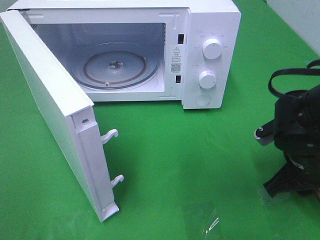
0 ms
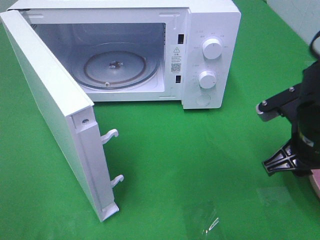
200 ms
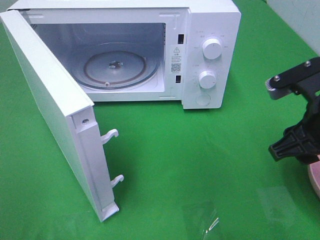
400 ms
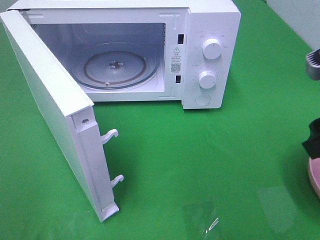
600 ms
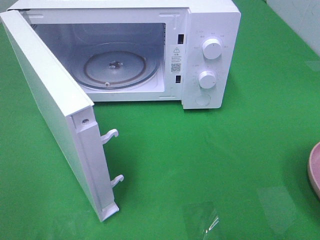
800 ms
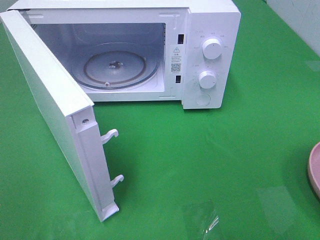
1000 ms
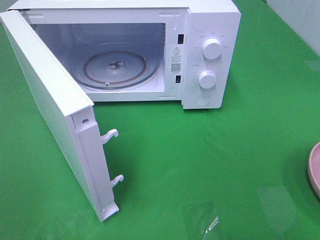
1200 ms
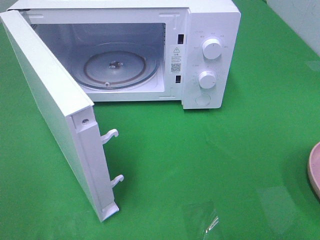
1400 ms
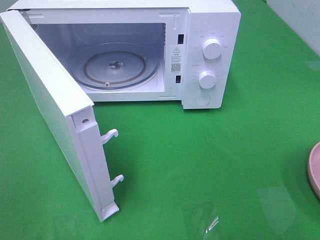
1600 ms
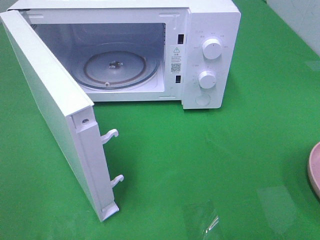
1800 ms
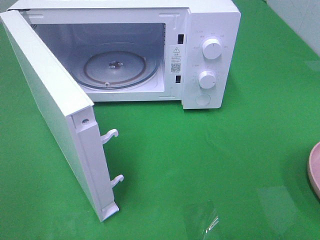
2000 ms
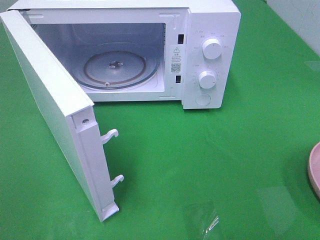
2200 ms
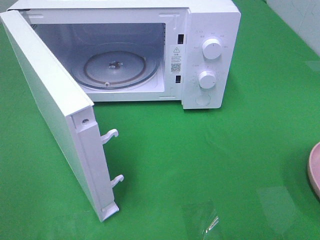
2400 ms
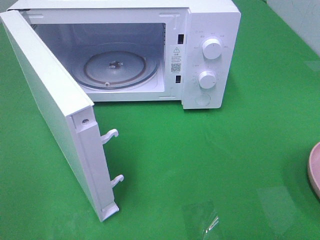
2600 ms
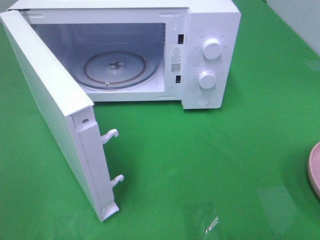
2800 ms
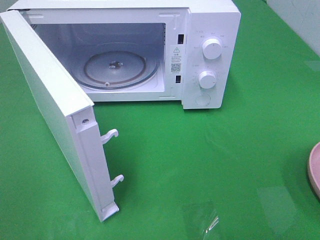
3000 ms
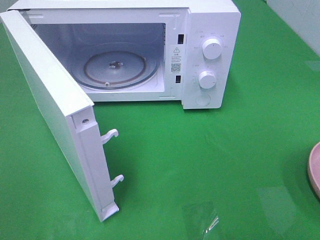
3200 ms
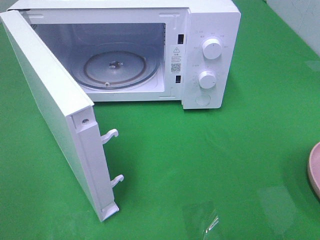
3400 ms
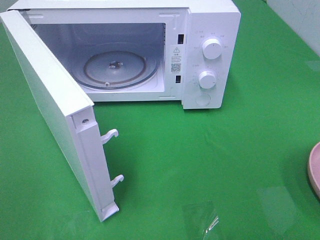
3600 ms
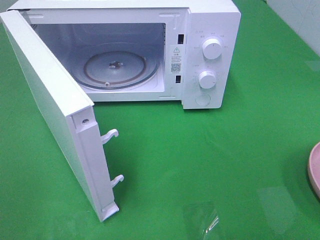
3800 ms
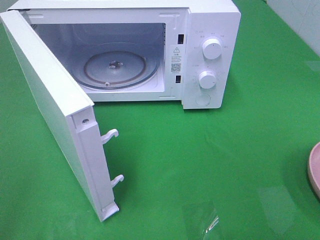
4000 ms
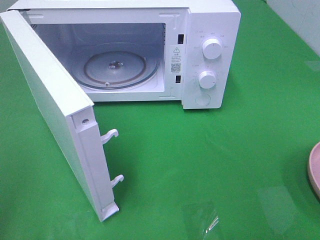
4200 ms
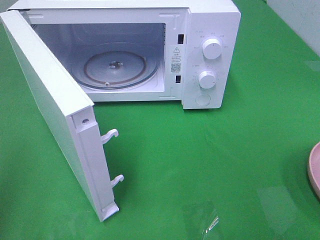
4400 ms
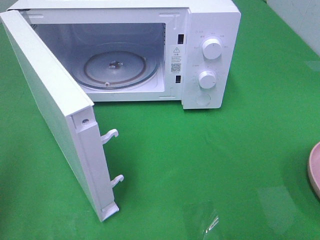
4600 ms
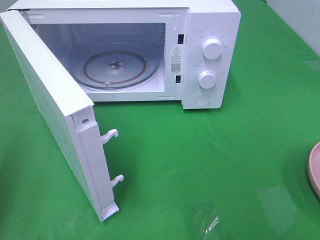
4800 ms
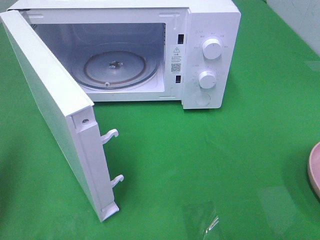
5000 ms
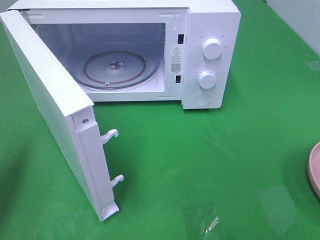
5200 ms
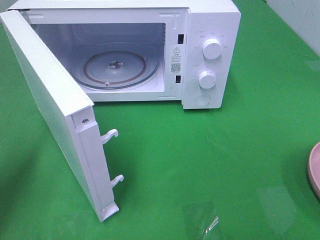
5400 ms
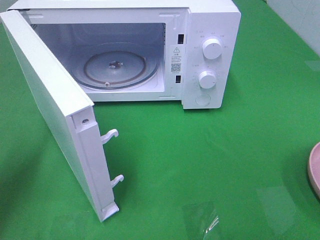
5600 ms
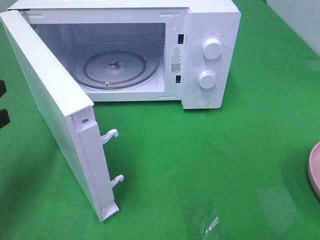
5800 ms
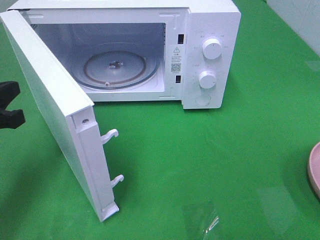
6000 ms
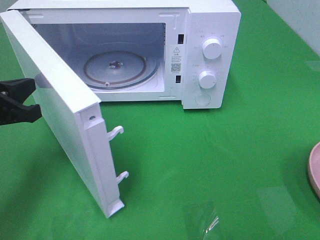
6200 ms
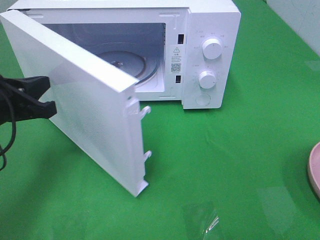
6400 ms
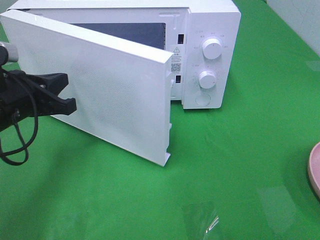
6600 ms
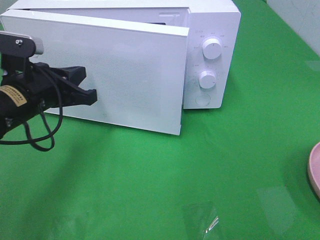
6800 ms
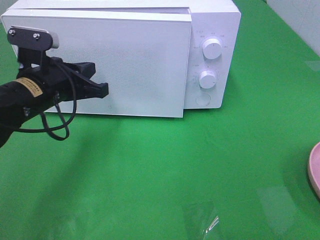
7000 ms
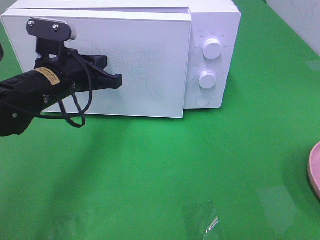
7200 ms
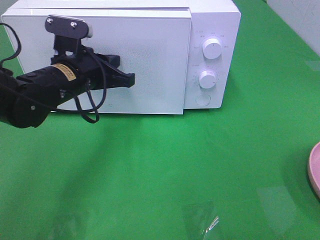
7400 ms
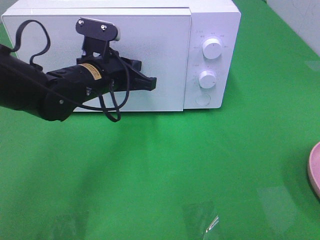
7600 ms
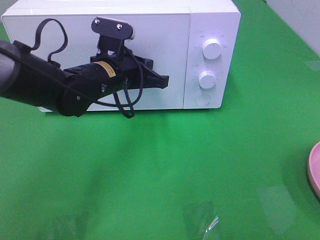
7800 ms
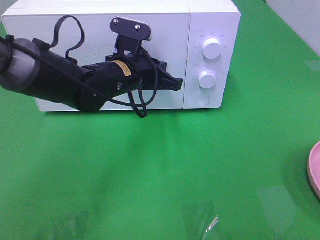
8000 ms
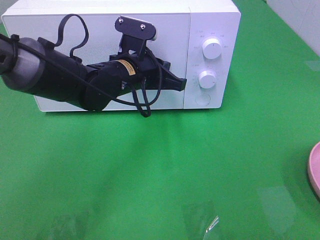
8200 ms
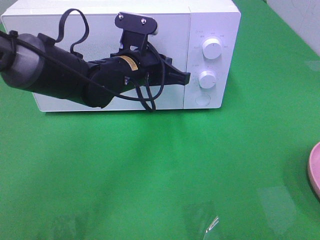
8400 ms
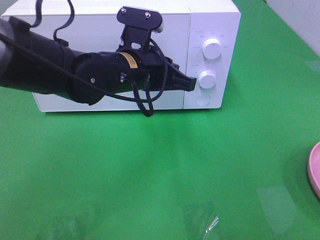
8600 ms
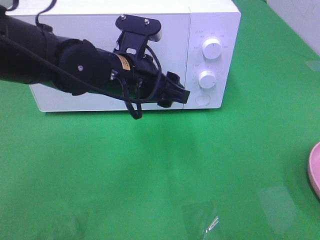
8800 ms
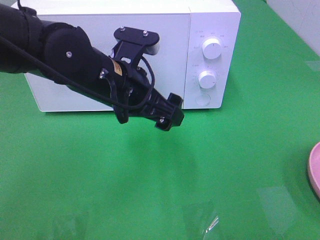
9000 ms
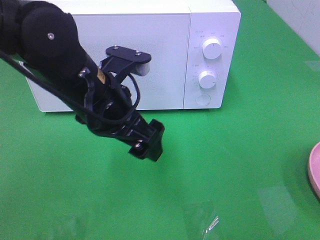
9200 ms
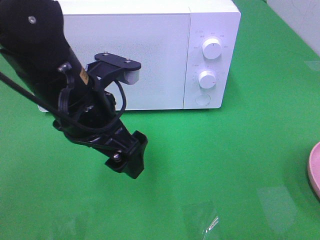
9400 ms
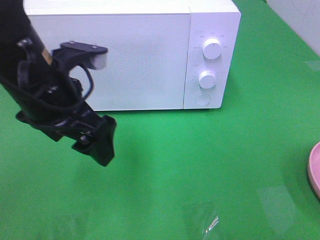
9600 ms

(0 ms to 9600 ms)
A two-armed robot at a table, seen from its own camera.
Task of the whole recording: Heat the burger.
Step, 0 ms - 8400 ms: Left hand: close the microwave door.
0 ms - 1600 ms: The right gripper goes some 30 cm upward, backward and to the right, and opens up.
4800 ms - 6400 ms: The left gripper heads forward, to the right and downward, covering roughly 20 cm.
6400 ms - 8000 ms: The left gripper goes roughly 20 cm to the right and forward.
8000 ms - 9600 ms: The left gripper is displaced backward, upward and to the left by roughly 15 cm, and opens up.

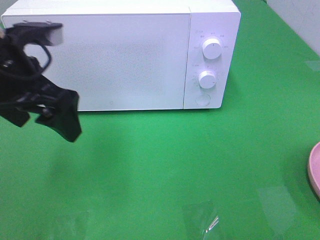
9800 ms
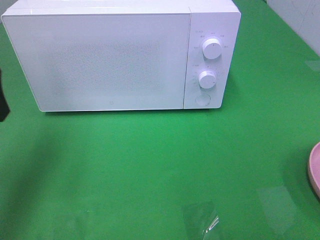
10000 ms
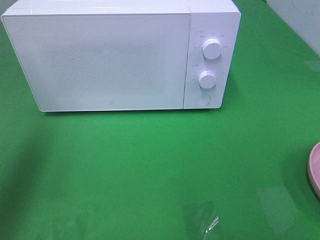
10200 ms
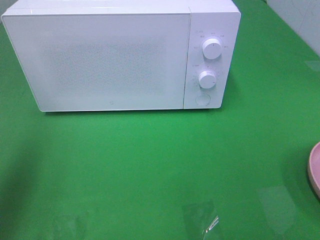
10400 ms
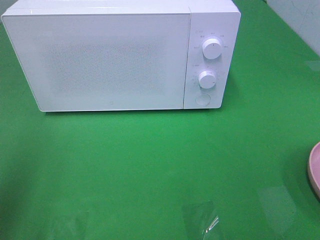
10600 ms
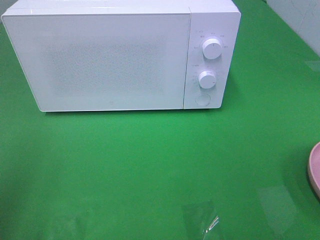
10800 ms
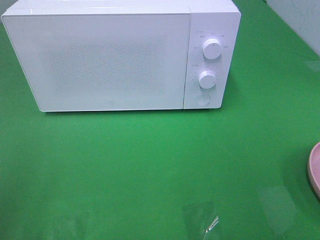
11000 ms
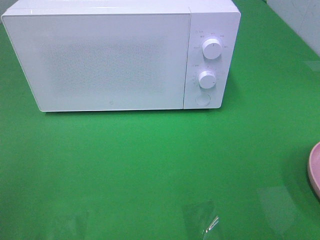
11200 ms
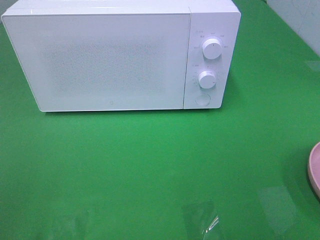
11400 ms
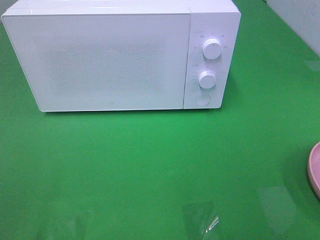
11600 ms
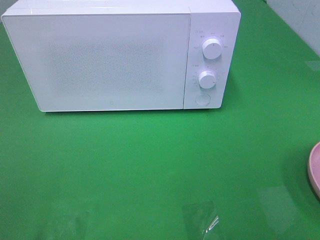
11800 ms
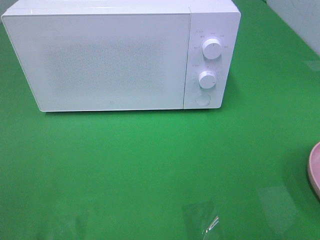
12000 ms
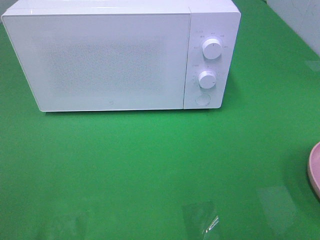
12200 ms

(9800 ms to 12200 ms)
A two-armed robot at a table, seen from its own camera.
Task of the whole recording: Heat the burger.
9800 ms - 11000 ms: The left gripper is displaced backward and to the left by about 20 cm.

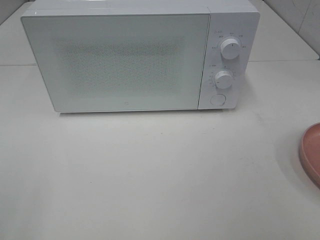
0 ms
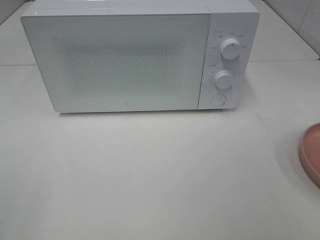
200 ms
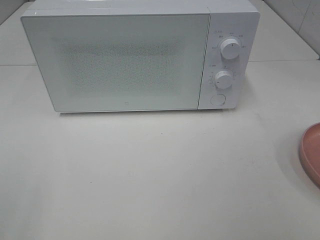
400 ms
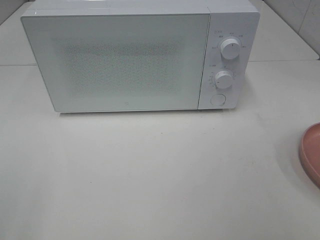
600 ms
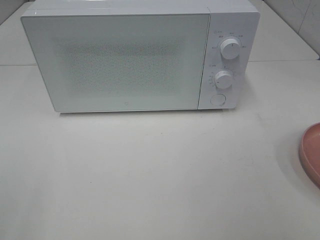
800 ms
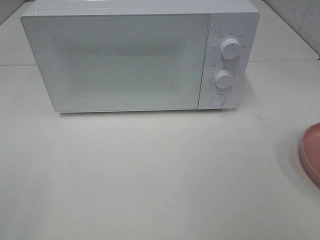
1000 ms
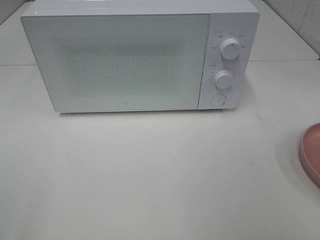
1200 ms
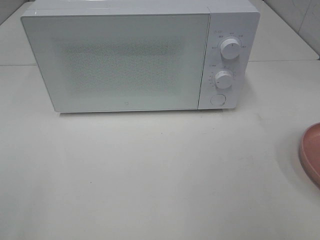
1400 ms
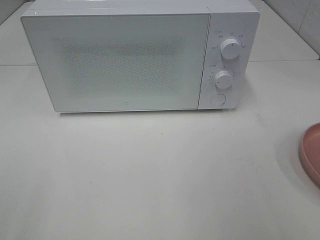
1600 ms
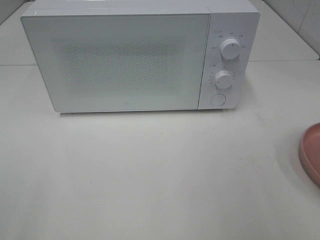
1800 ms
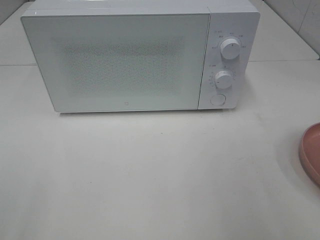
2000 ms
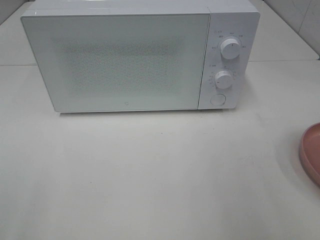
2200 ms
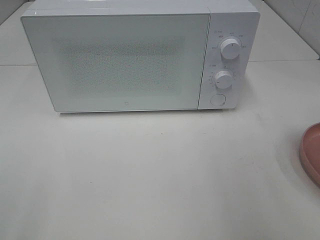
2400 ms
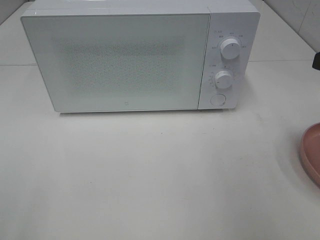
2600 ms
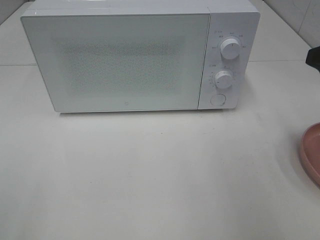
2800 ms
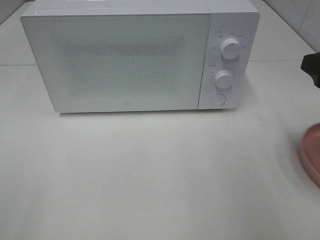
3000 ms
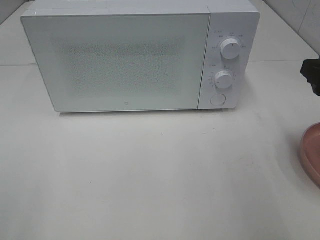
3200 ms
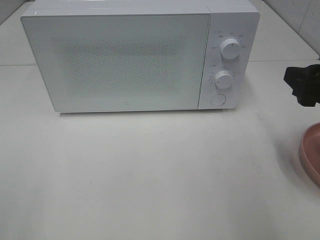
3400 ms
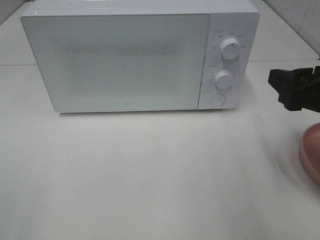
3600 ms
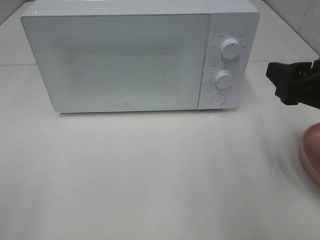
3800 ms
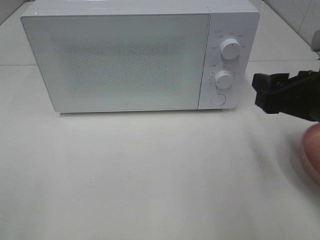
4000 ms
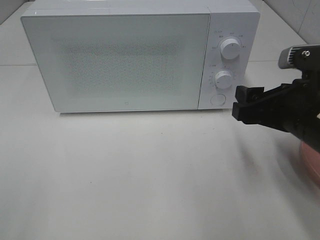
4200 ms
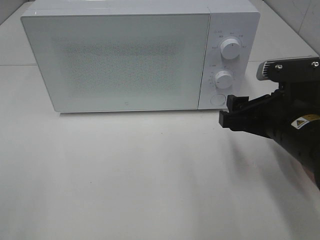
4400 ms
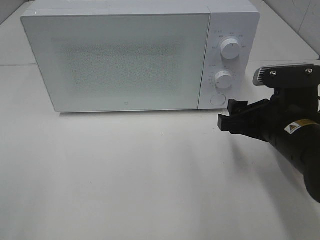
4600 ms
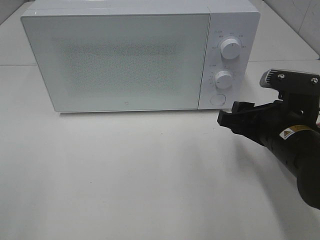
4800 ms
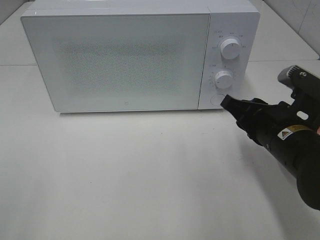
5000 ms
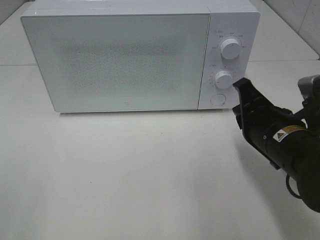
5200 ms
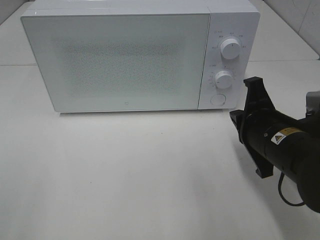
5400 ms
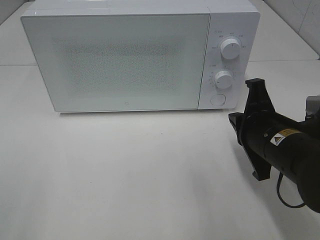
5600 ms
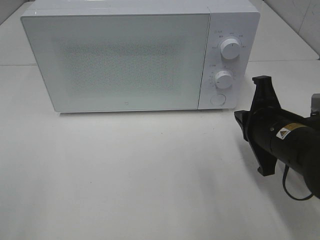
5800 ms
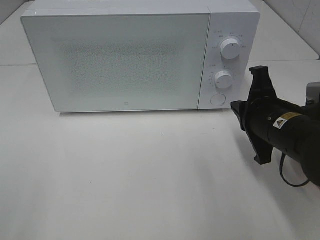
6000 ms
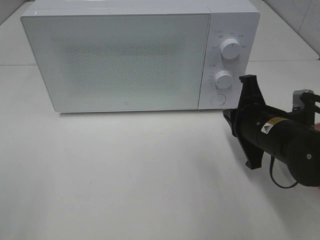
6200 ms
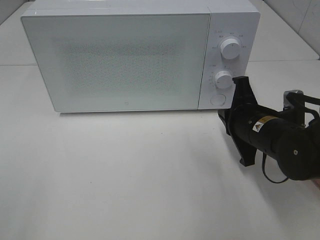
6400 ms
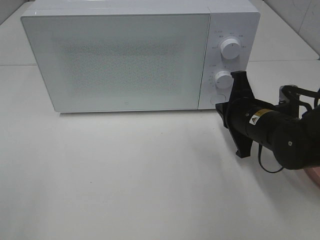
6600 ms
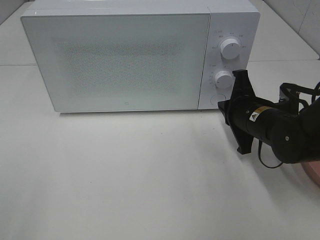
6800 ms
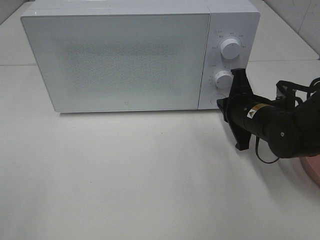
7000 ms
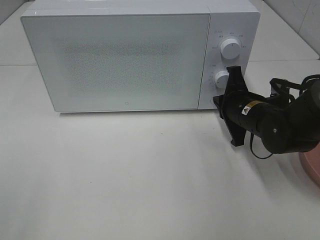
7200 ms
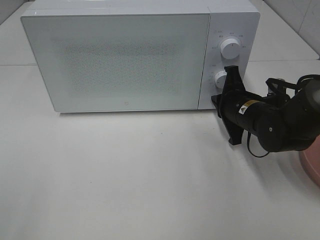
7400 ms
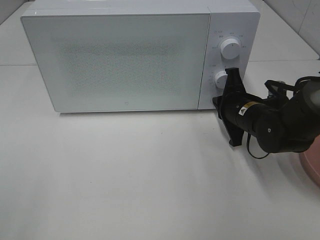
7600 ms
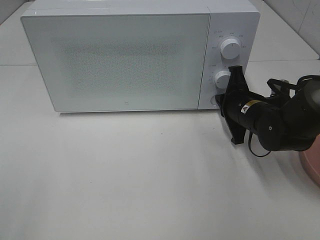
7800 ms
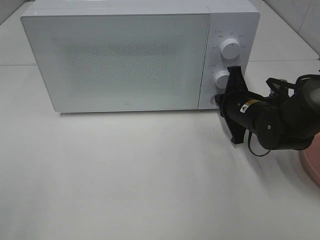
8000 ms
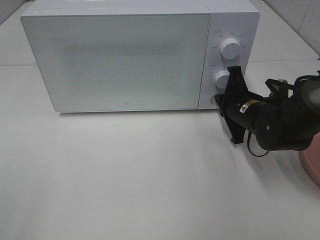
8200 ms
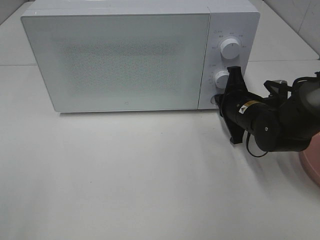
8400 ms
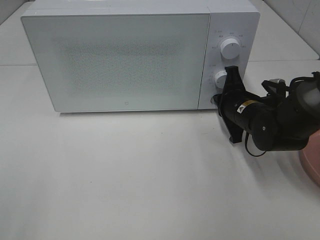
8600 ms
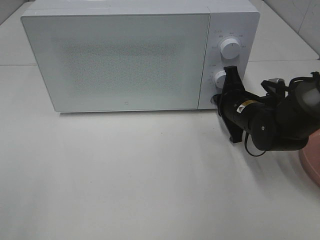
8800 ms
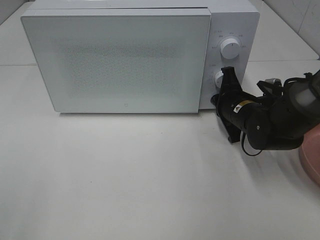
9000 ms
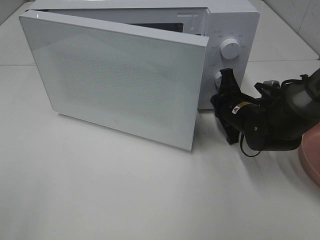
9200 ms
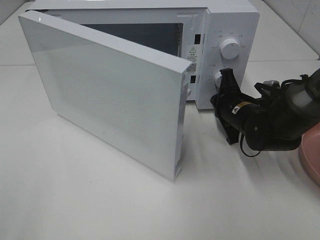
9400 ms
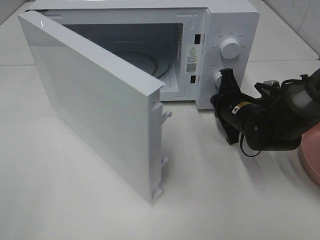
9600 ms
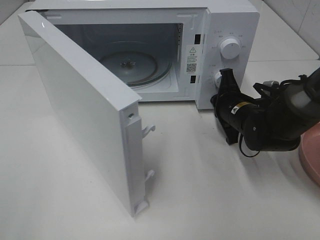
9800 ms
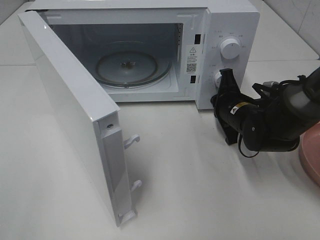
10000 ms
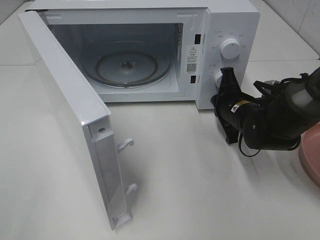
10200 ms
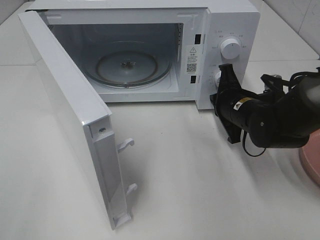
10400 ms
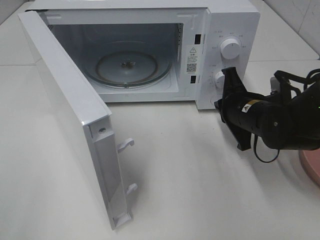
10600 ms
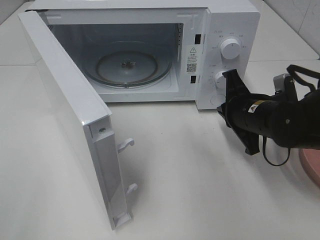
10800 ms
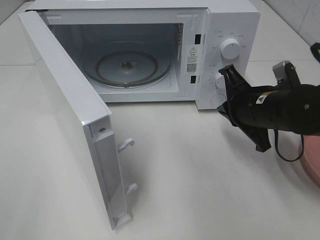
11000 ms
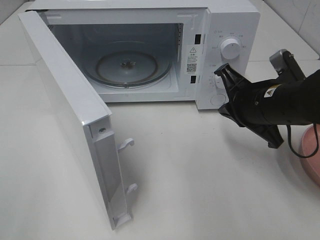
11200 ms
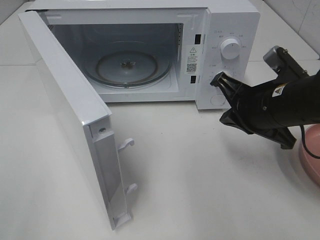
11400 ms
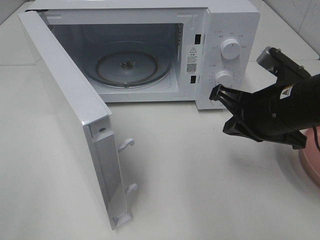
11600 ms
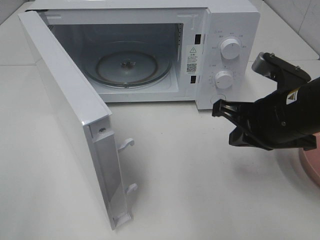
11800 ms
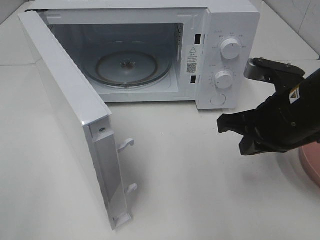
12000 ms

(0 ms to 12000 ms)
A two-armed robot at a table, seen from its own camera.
Task of the whole recording: Heat the burger.
Step, 0 ms - 10400 ms: Right hand: press the switch.
1600 ms - 3000 ms: The right gripper travels forward and downward by approximately 15 cm.
3000 ms - 4400 ms: The right gripper heads to the left and downward, covering roughly 15 cm.
4400 ms - 6000 ms: The right gripper closes up.
6000 ms - 7600 ms: The right gripper travels forward and downward by about 10 cm.
7600 ms - 9000 ms: The grippers make only small movements.
10400 ms - 12000 ms: The right gripper travels backward and upward by roughly 15 cm.
